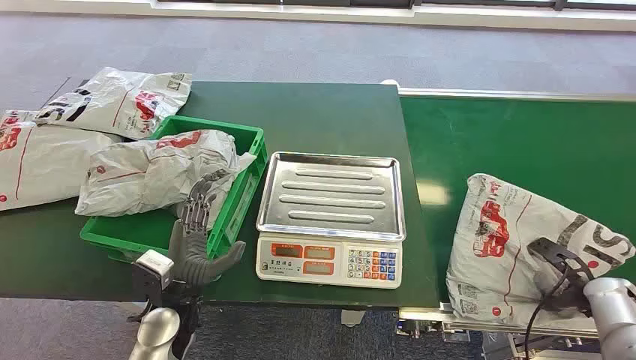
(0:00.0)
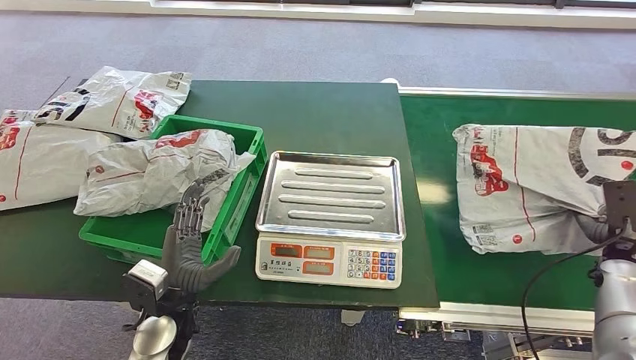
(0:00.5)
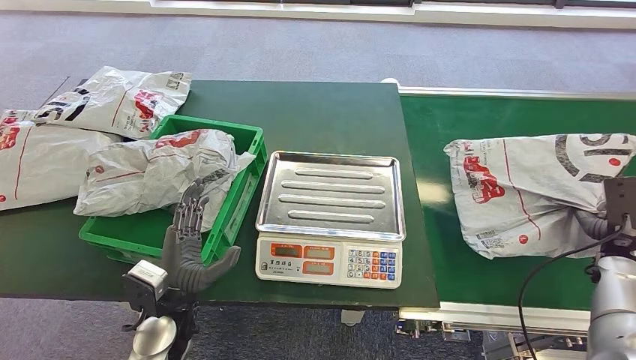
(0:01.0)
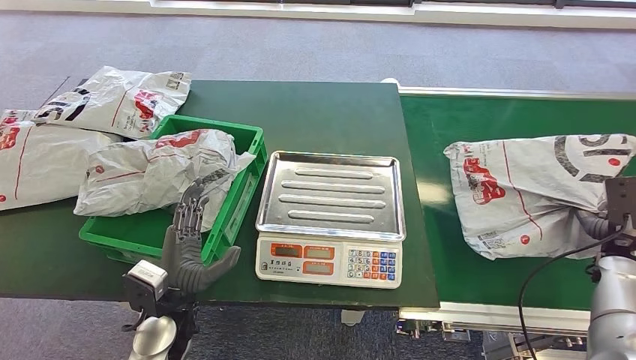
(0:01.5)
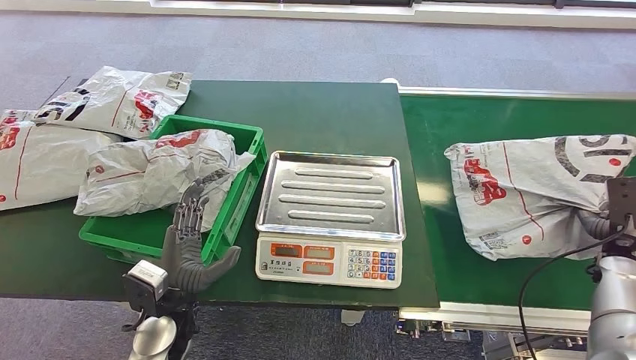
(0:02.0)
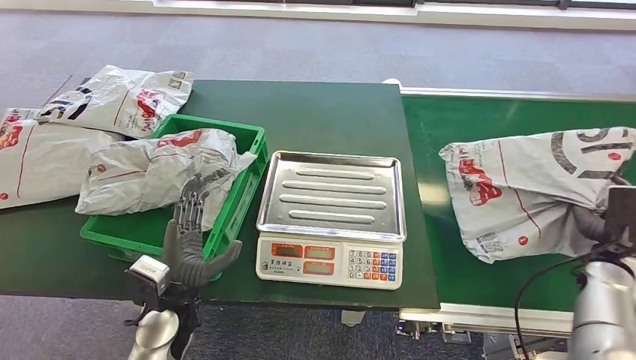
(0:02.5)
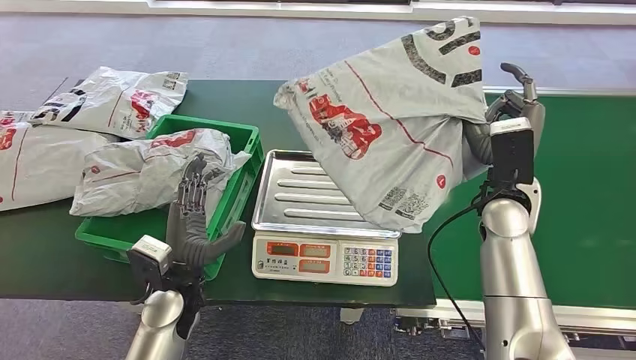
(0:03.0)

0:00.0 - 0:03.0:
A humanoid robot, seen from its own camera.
Step, 0:00.0 - 0:02.5: Pick up the package from the conveyor belt.

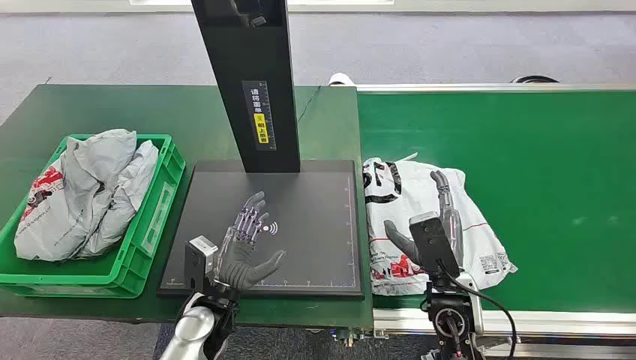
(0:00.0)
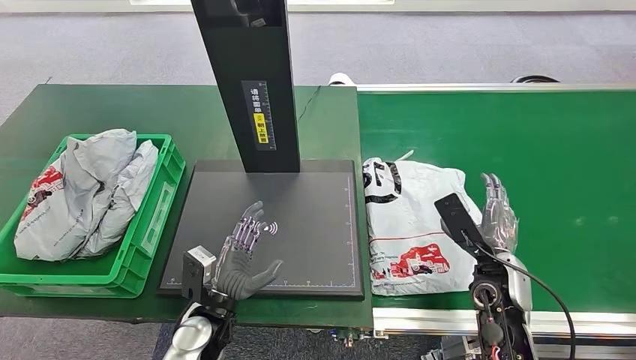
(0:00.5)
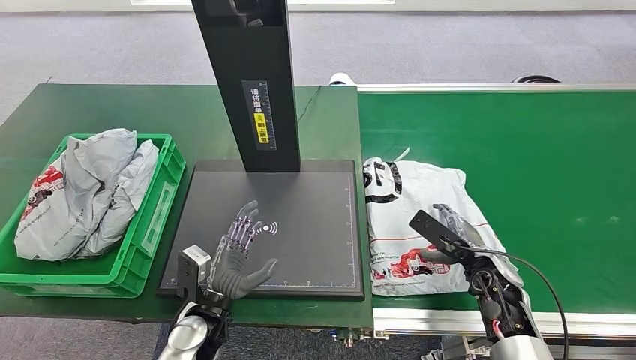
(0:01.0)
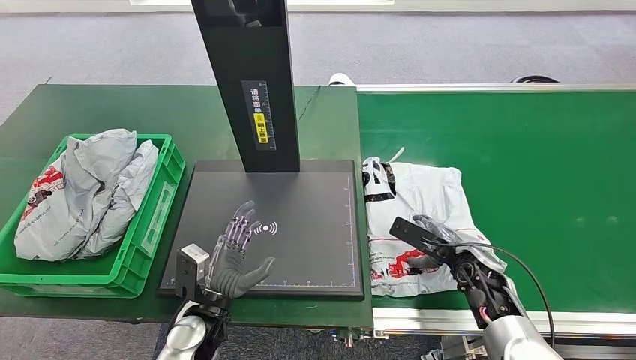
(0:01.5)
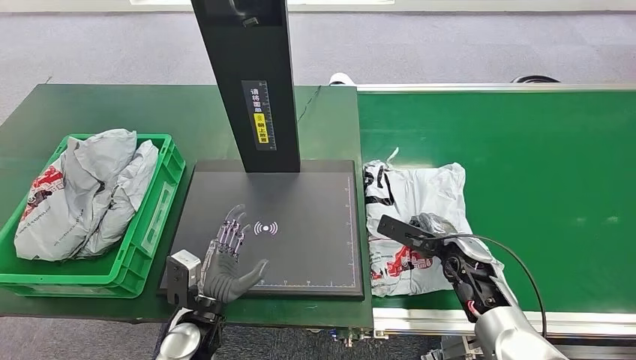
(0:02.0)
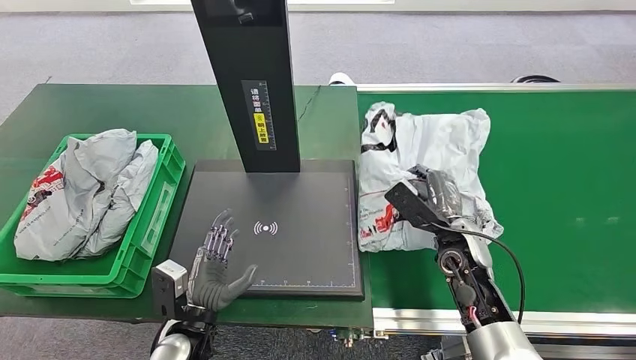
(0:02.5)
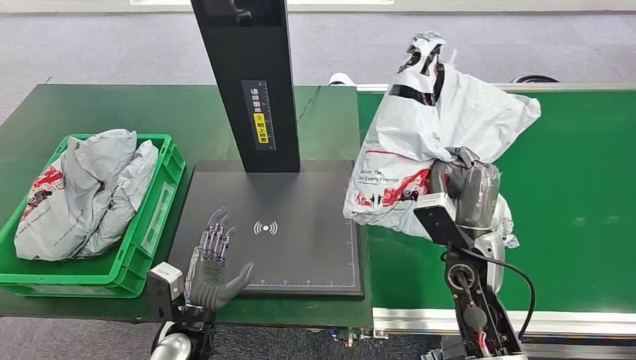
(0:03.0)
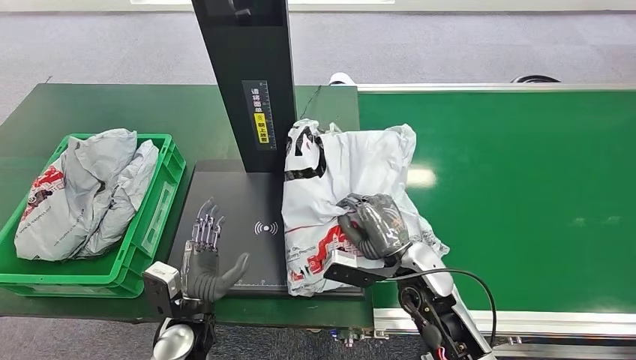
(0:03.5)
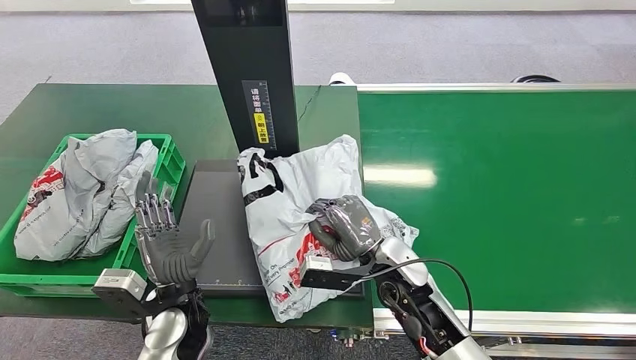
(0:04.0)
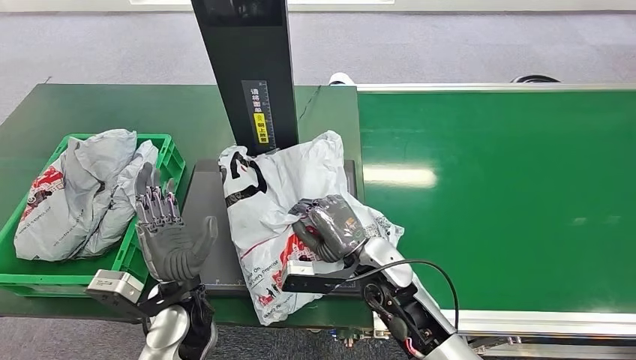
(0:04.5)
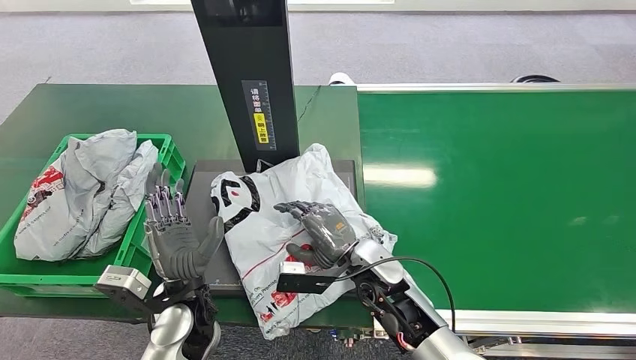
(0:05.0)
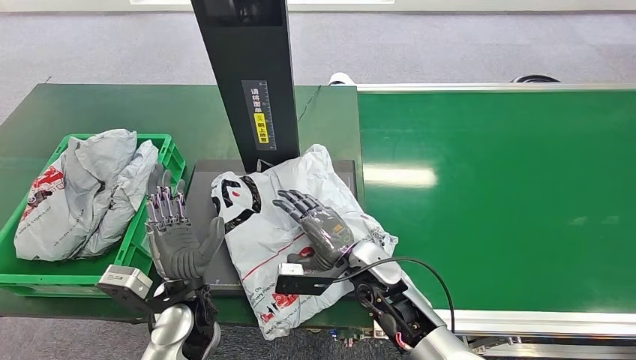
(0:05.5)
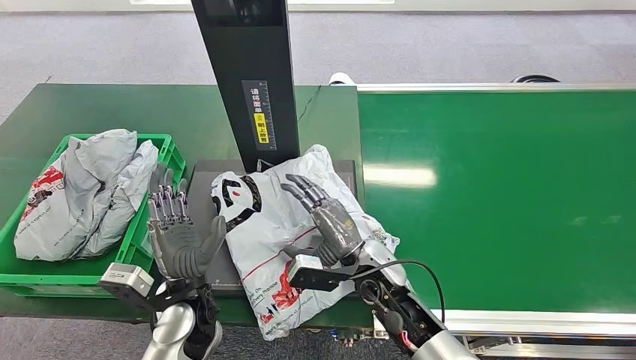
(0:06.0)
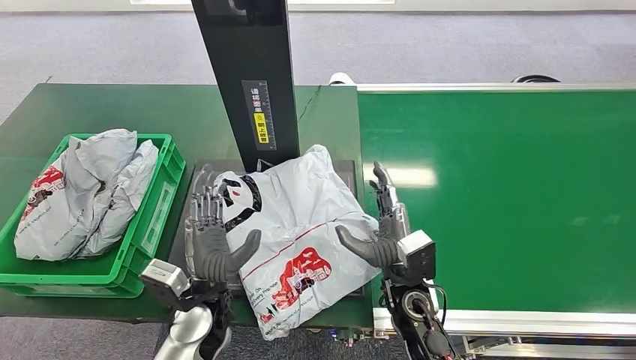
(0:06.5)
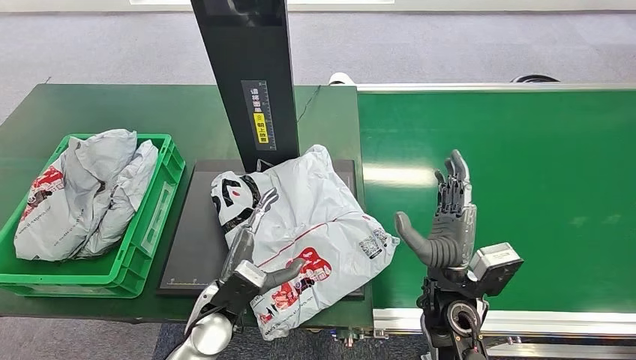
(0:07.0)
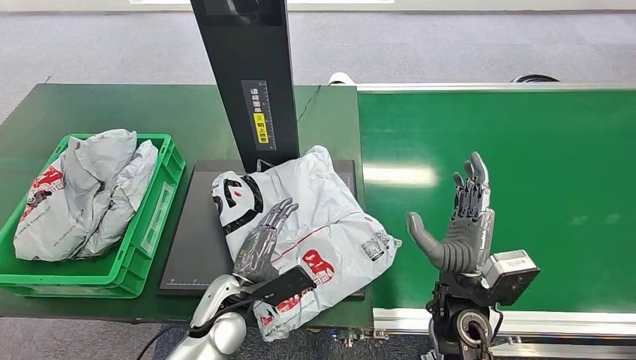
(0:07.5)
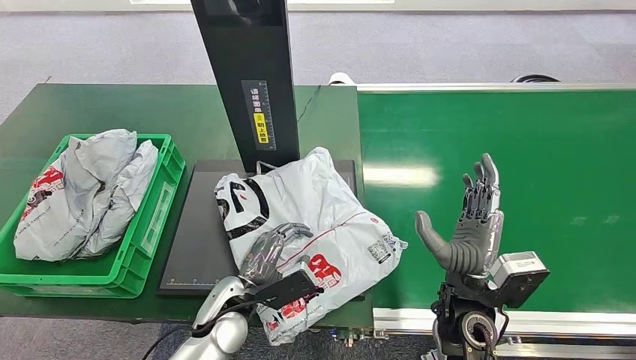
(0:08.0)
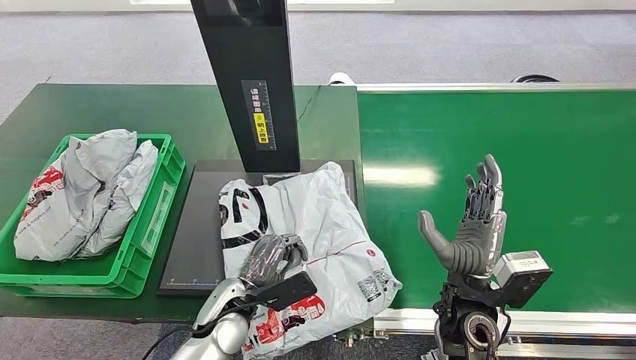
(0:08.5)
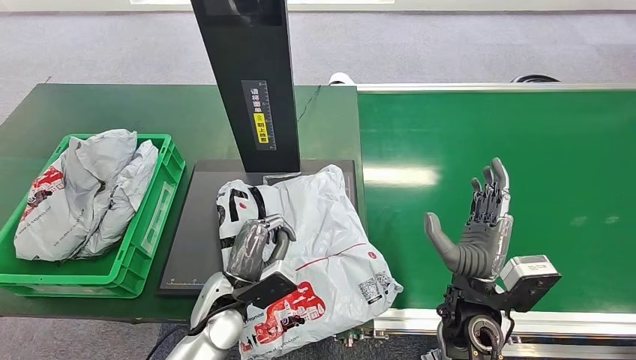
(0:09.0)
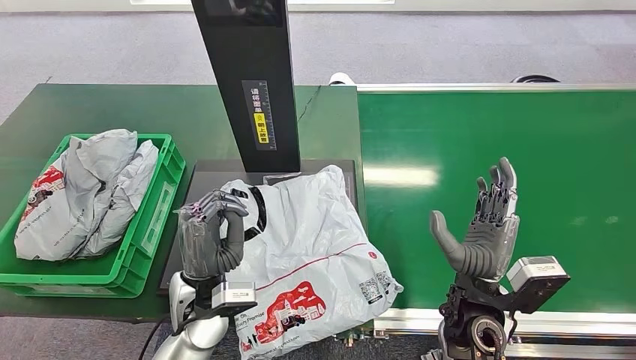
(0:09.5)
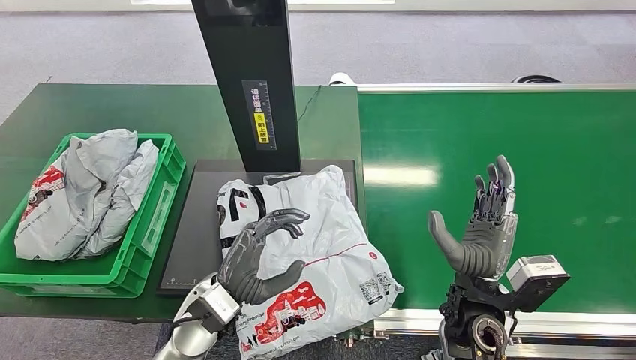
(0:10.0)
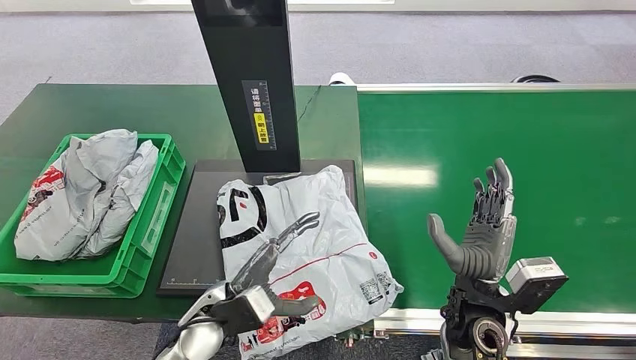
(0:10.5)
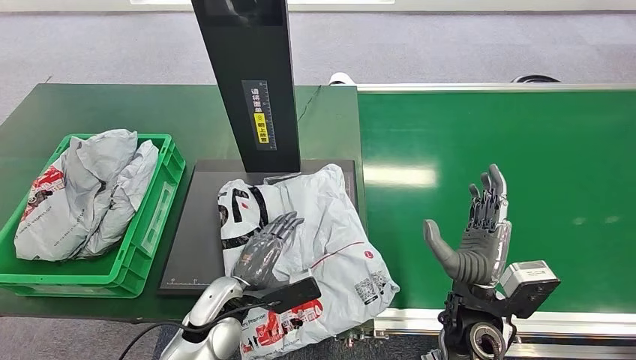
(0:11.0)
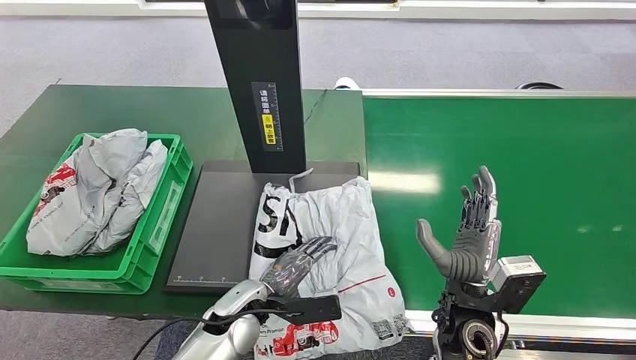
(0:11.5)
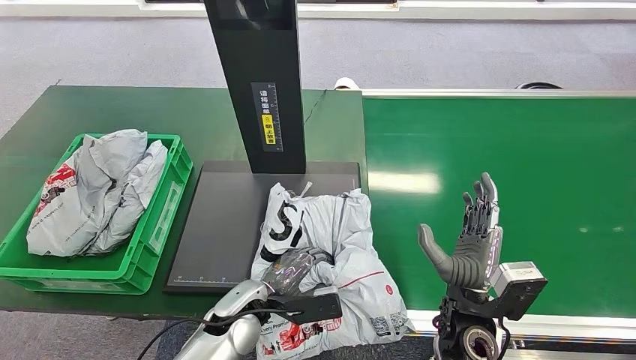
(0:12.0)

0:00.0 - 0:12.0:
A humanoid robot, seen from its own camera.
Step, 0:00.0 - 0:03.0: Pick up the package from the conveyor belt.
Step, 0:03.5 - 0:06.0: Place the package onto the inbound machine.
0:04.0 - 0:06.0: The hands stay close to where they were, moving slightly.
0:06.0 - 0:08.0: The right hand goes some 10 cm to the right and backward, while the left hand ends up some 5 cm from where it was.
0:08.0 - 0:10.0: The left hand goes roughly 5 cm upward.

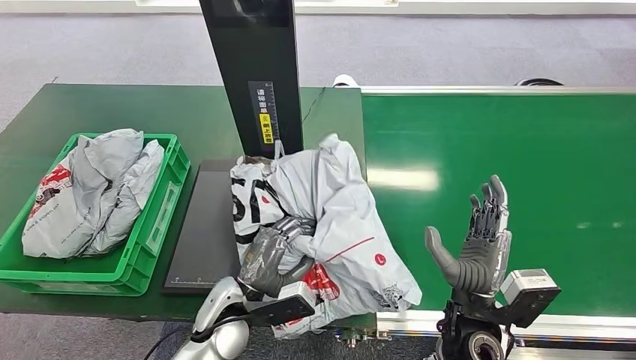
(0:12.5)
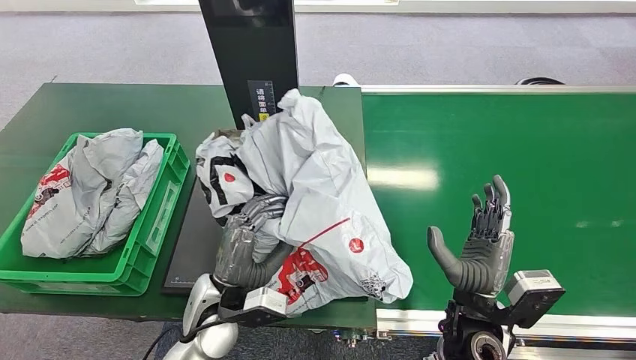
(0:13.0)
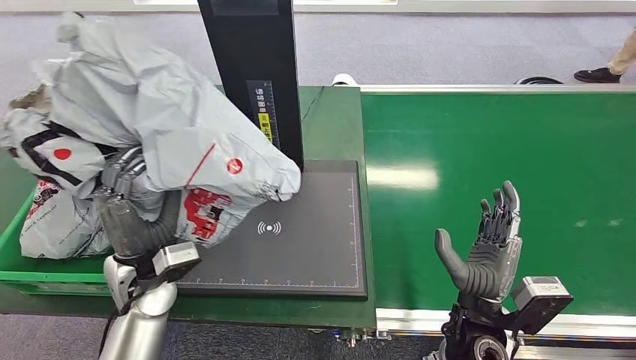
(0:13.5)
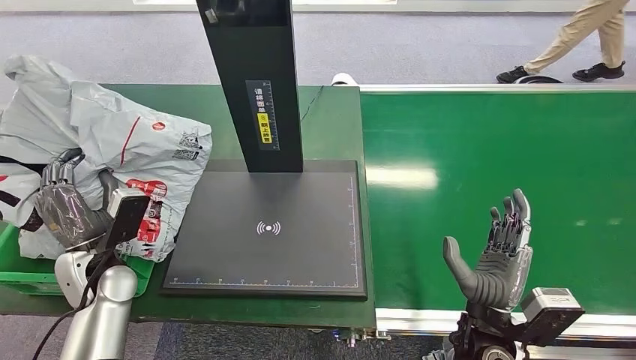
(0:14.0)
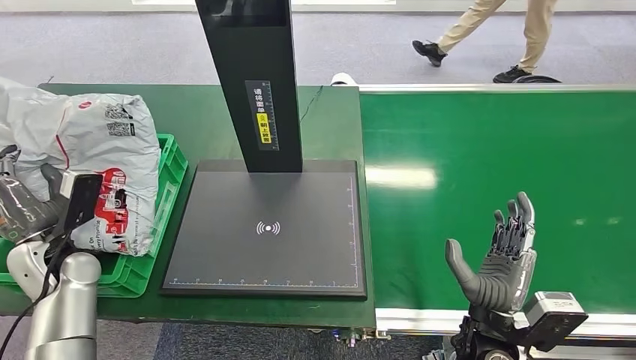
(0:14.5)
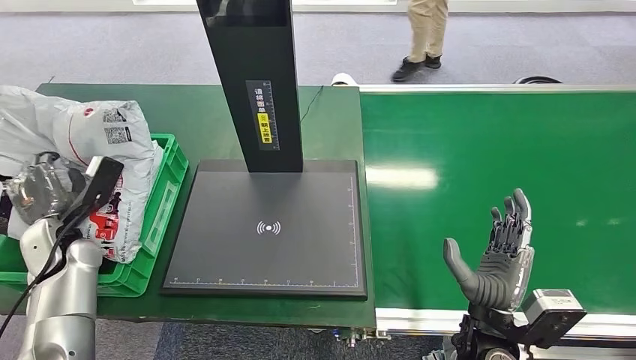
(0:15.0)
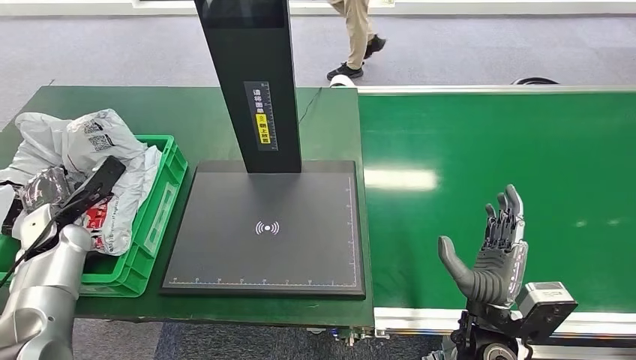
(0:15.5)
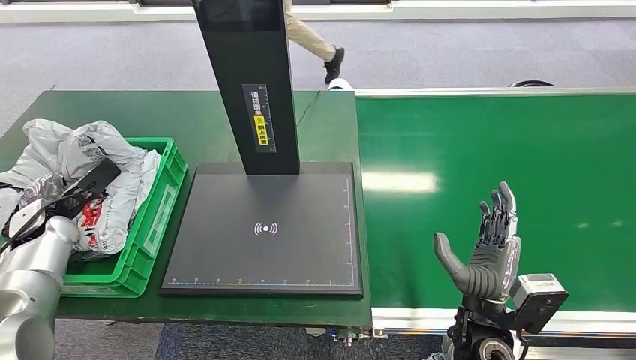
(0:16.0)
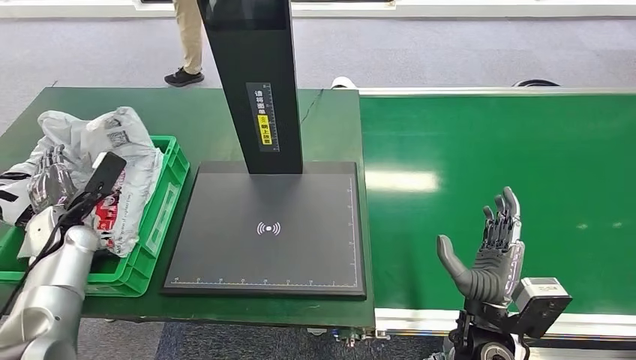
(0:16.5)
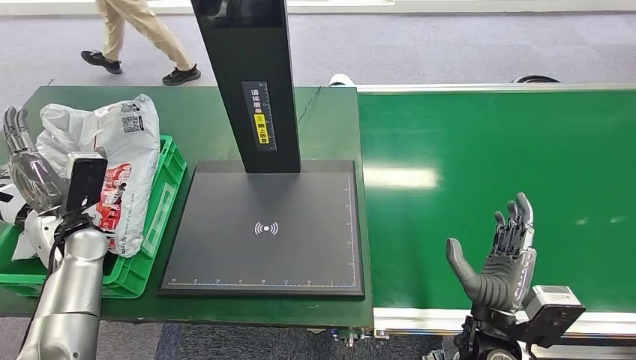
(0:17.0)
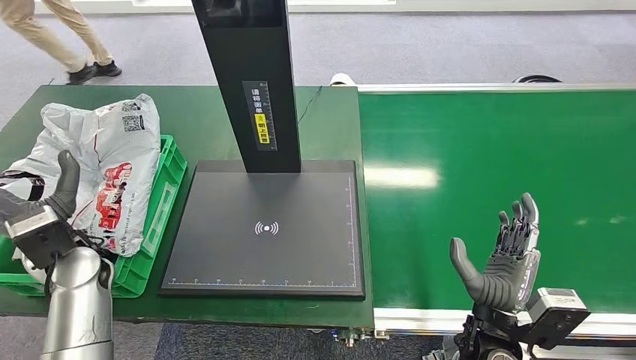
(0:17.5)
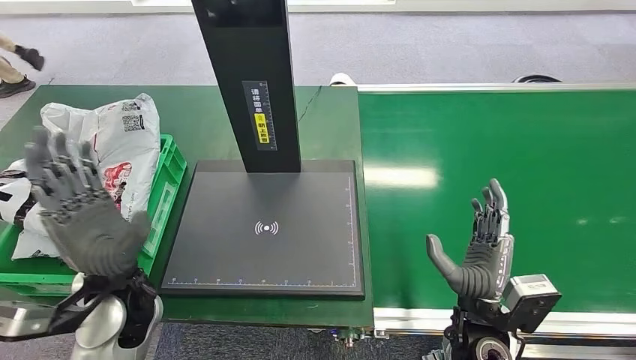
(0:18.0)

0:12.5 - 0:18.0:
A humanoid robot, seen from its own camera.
Step, 0:13.5 - 0:18.0: Place the package into the parcel locker.
